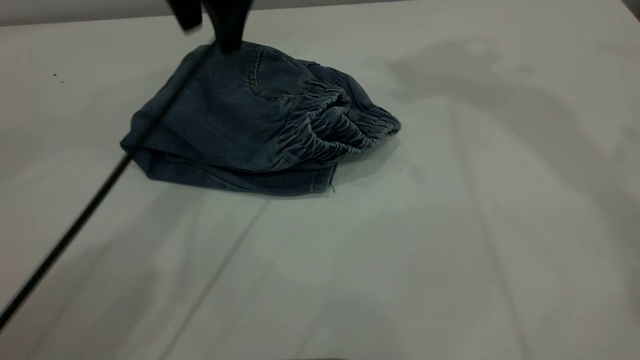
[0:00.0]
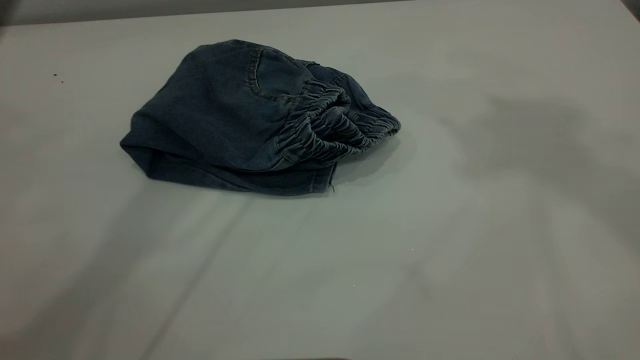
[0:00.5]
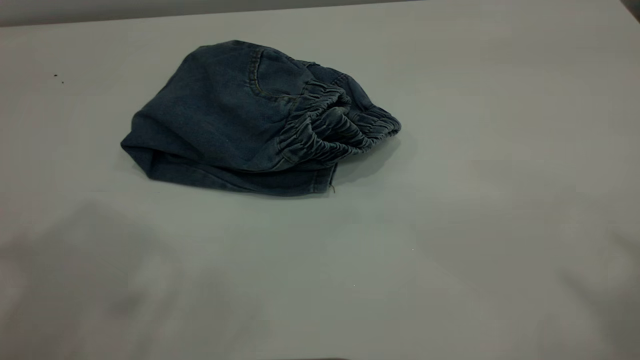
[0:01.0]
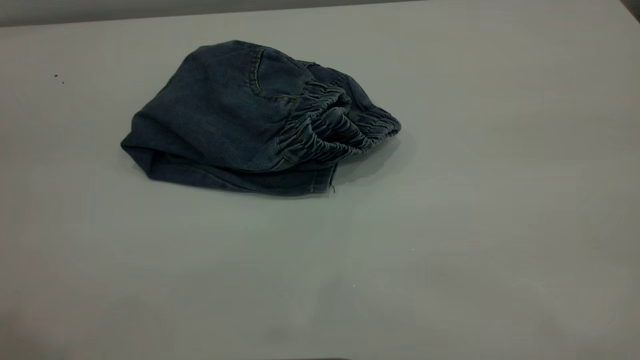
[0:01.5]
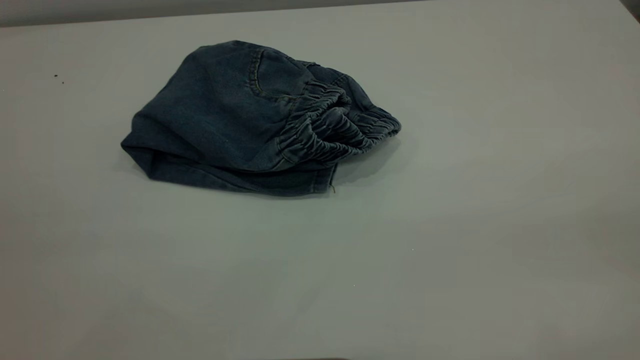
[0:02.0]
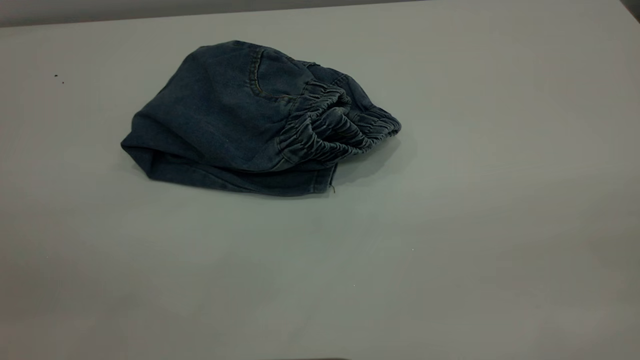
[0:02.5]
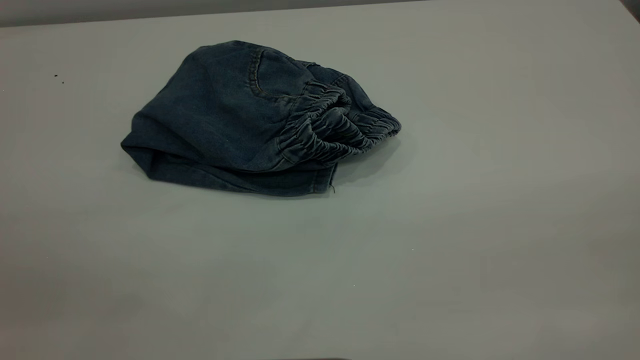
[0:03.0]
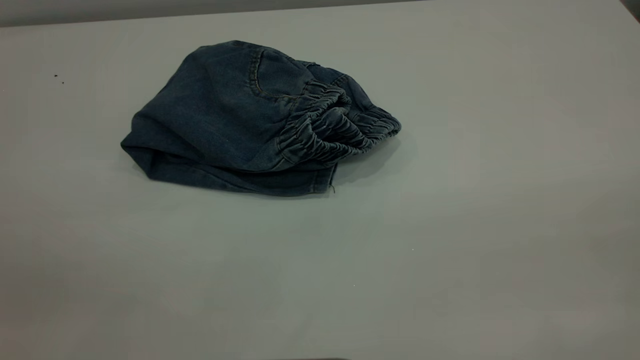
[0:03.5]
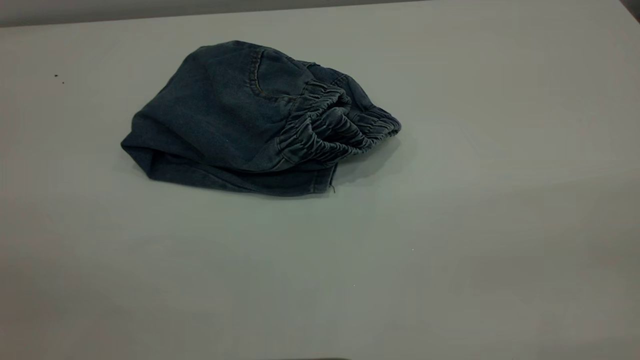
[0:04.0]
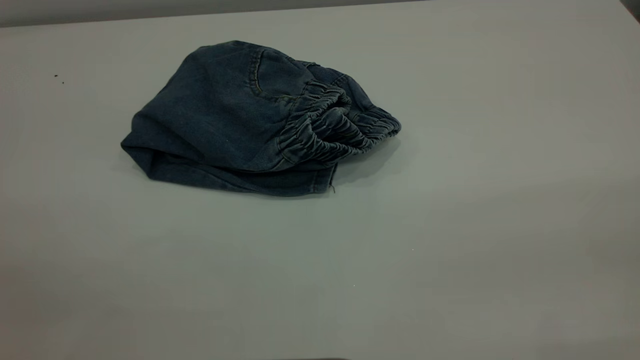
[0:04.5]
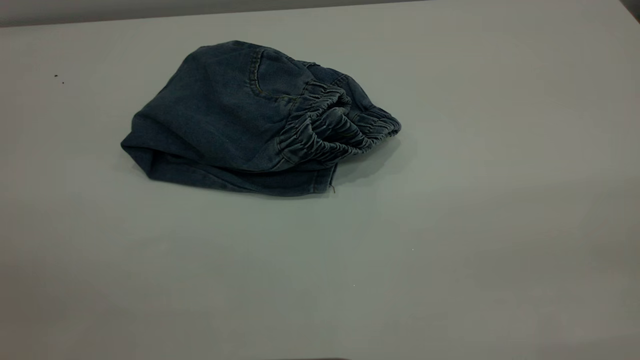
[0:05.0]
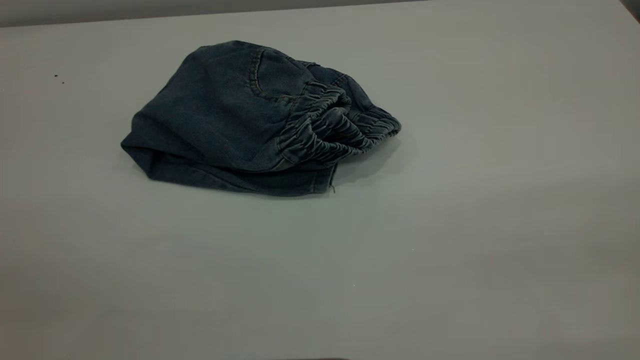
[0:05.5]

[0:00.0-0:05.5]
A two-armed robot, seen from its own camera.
0:00.0 to 0:02.0: The left gripper heads backward and to the left, covering roughly 40 cm; the right gripper travels backward by roughly 40 cm.

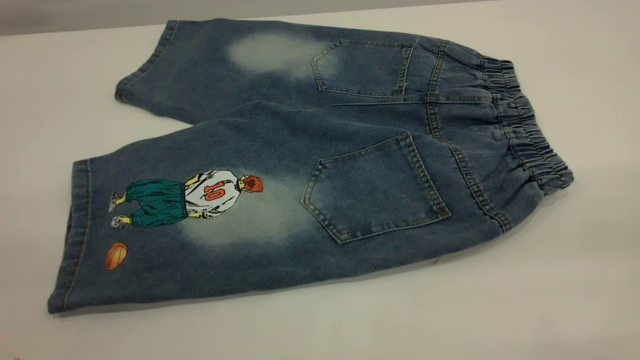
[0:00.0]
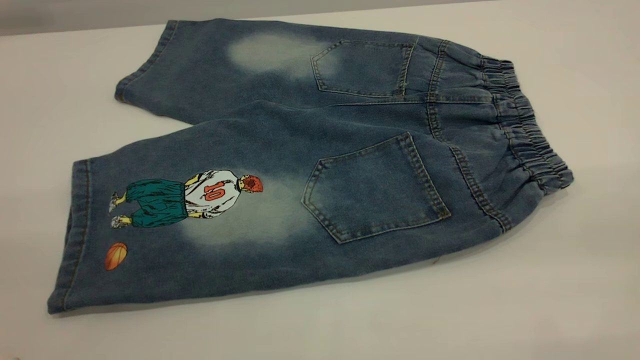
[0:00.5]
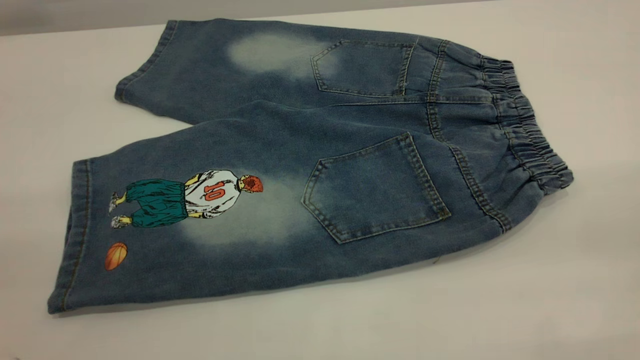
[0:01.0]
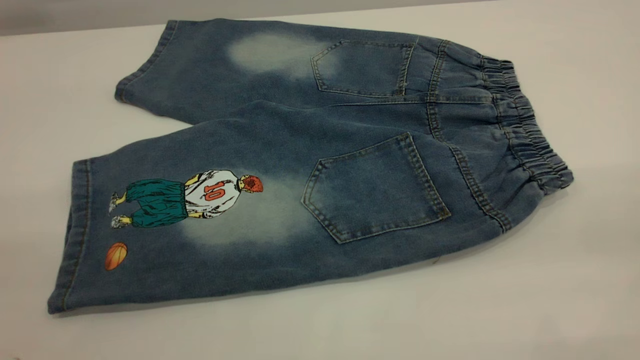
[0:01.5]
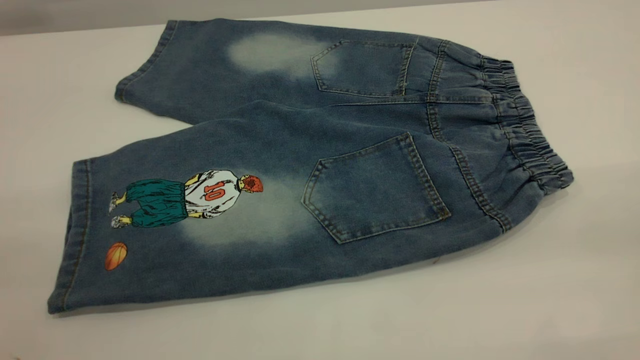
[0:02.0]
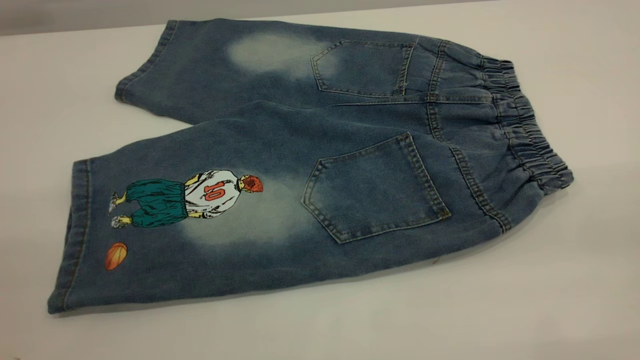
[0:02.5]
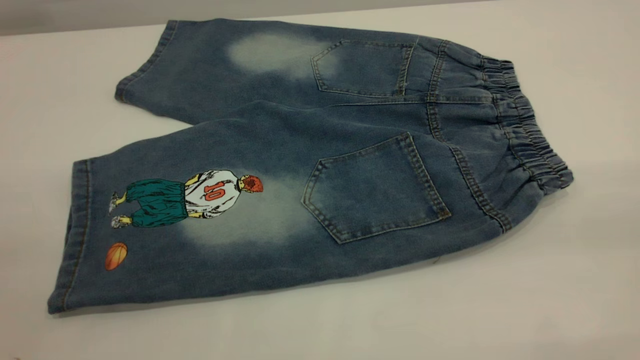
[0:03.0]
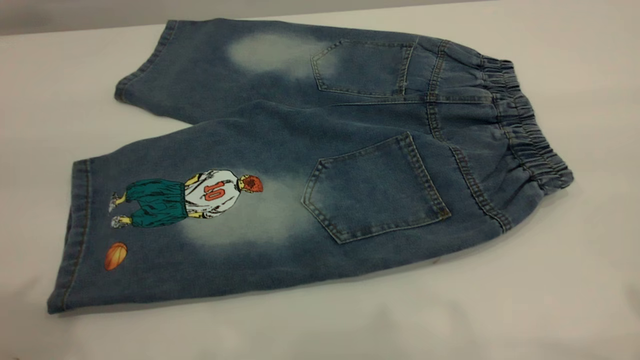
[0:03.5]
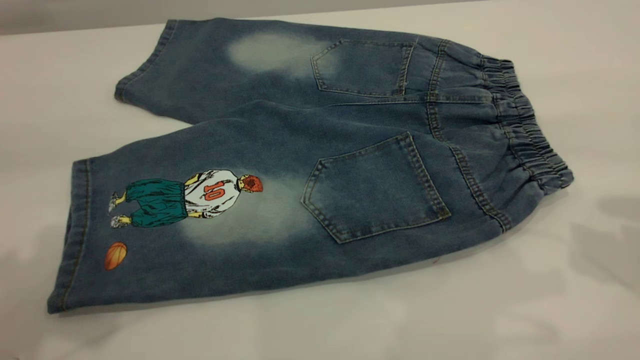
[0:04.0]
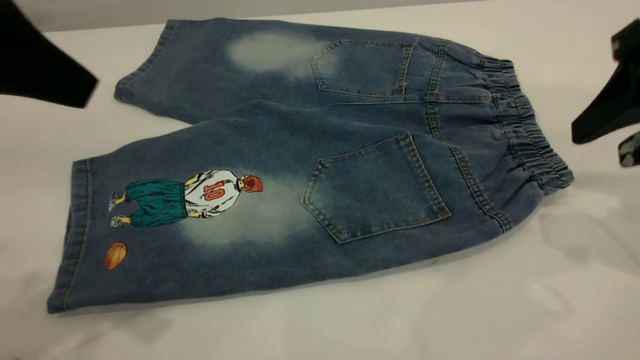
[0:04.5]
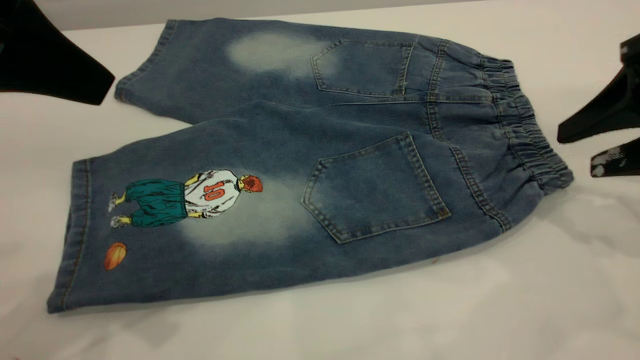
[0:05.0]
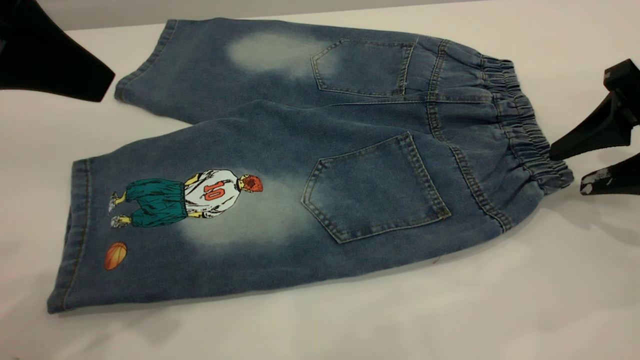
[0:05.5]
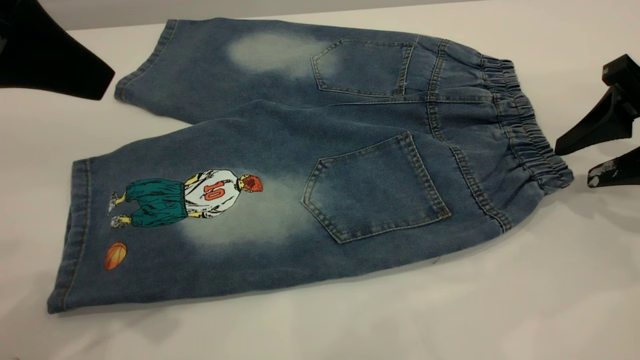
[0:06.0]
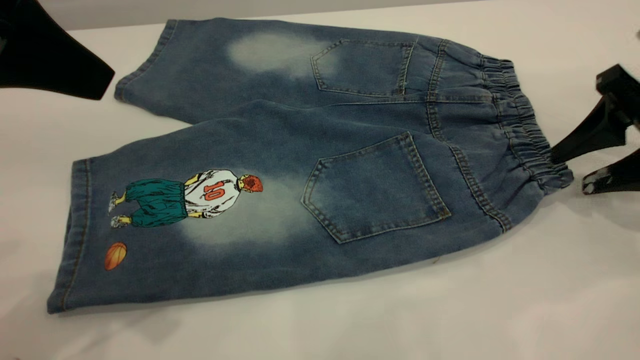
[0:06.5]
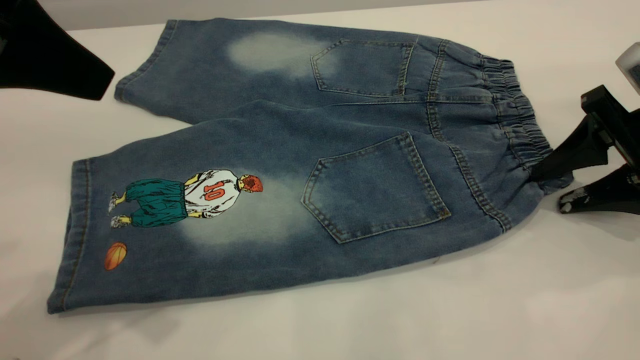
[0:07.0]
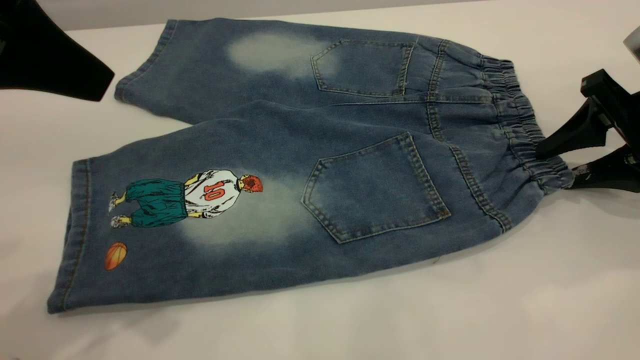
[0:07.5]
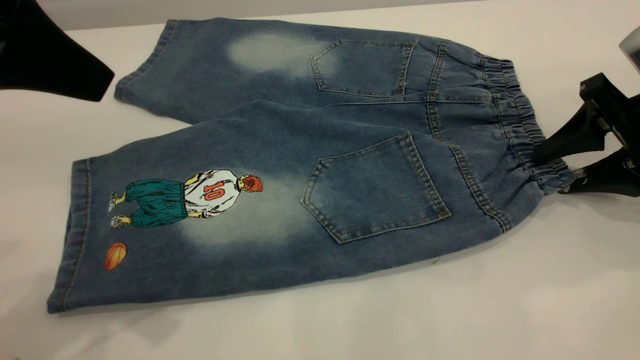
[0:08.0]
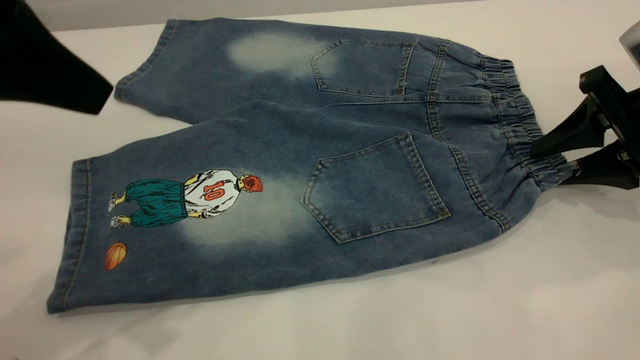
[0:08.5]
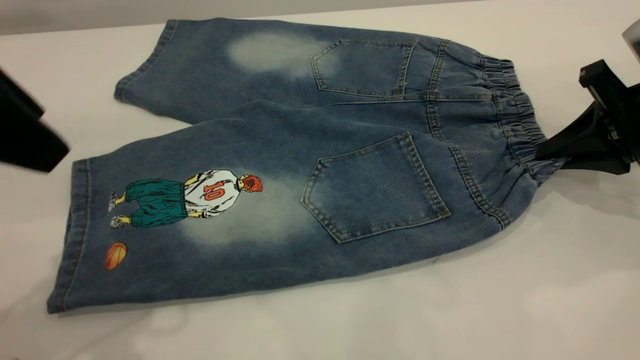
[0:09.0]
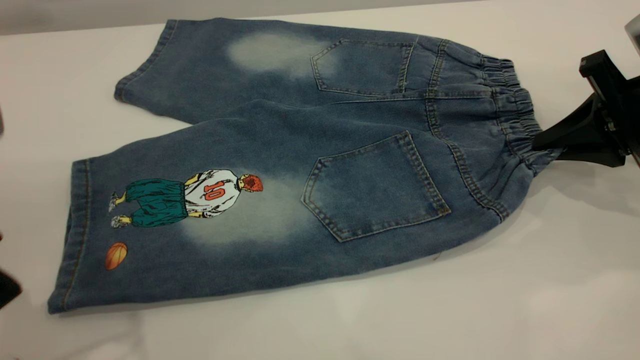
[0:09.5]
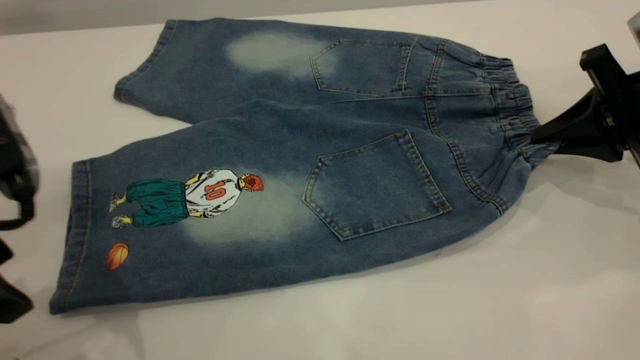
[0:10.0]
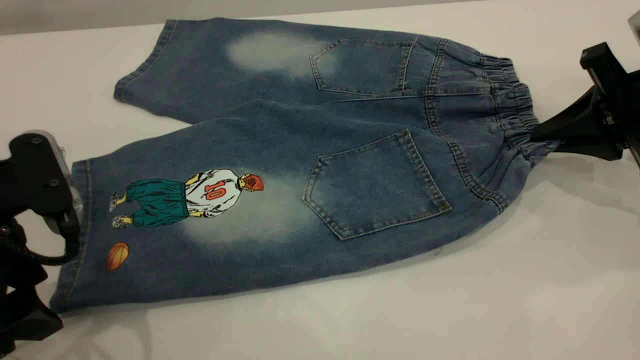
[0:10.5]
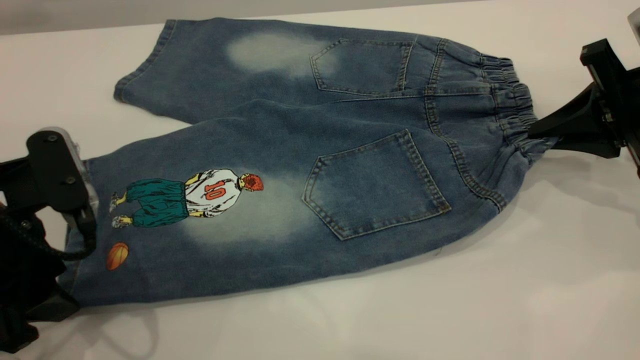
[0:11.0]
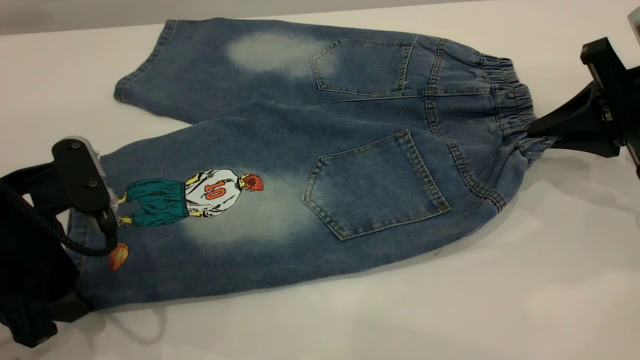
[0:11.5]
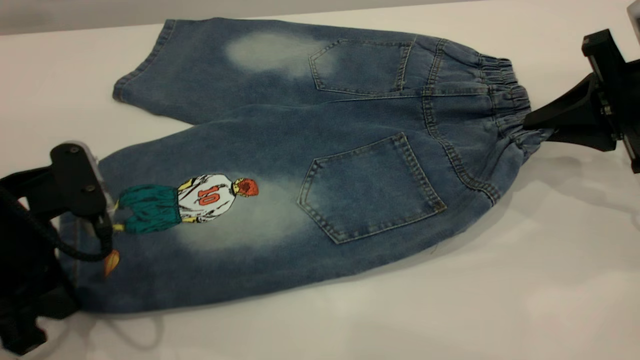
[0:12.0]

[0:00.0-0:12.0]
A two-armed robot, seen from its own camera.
0:00.0 to 0:02.0: Neither gripper changes place.
0:04.0 to 0:06.0: The right gripper shifts roughly 15 cm downward and forward; the left gripper shifts approximately 5 cm to the right.
0:06.0 to 0:08.0: The grippers stay close to where they were, moving slightly.
0:08.0 to 0:10.0: The left gripper shifts some 10 cm downward, while the right gripper closes its fingers.
0:10.0 to 0:12.0: The left gripper goes some 5 cm downward, and closes its fingers.

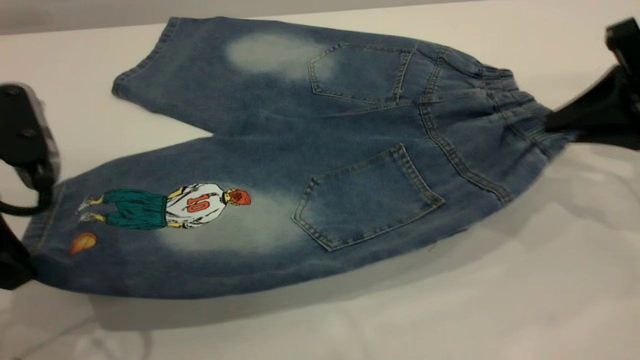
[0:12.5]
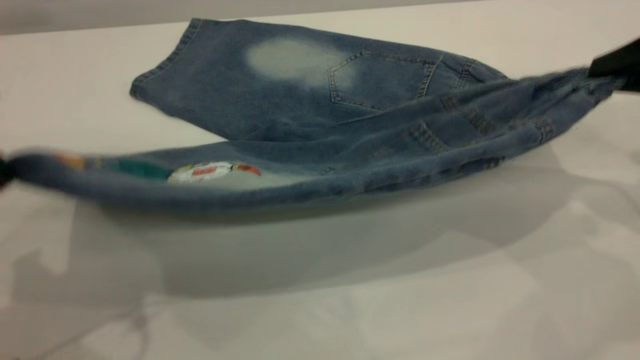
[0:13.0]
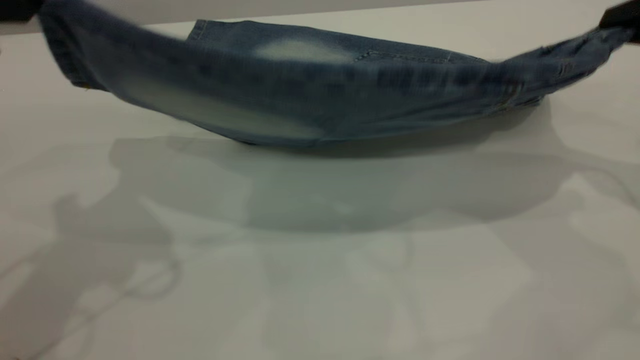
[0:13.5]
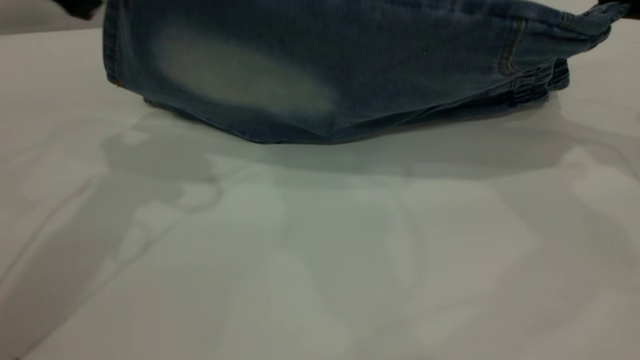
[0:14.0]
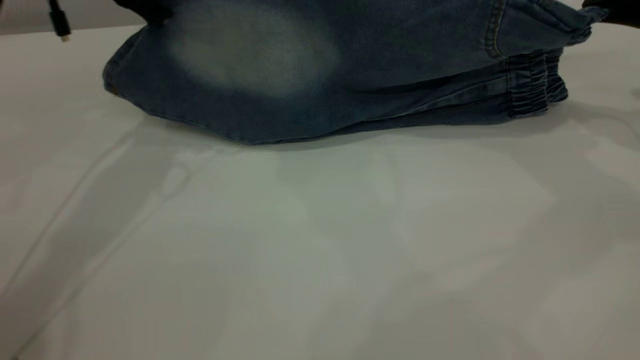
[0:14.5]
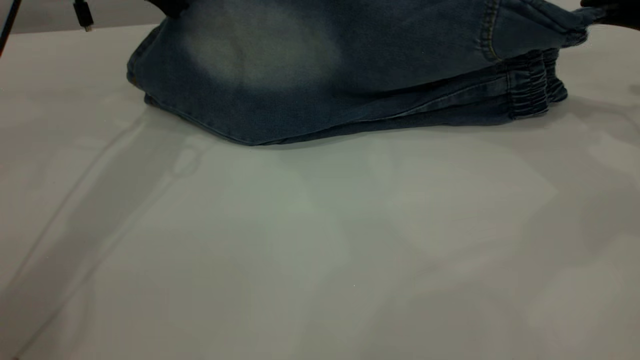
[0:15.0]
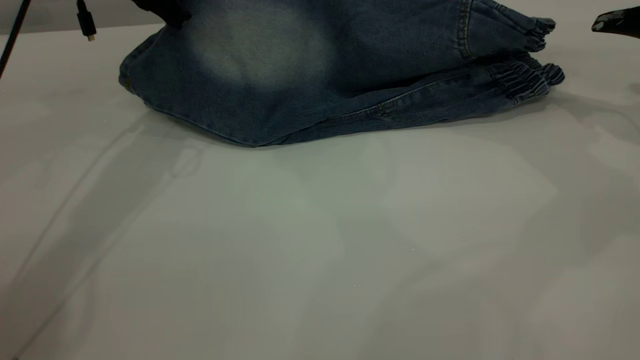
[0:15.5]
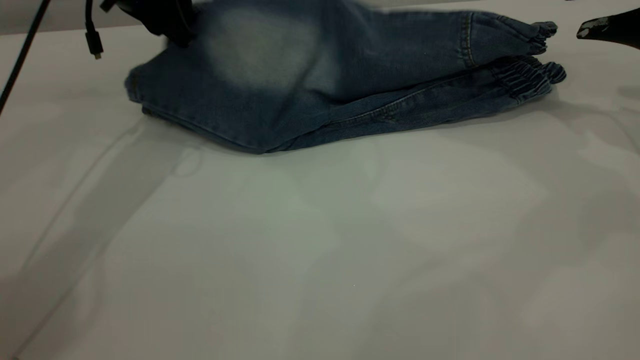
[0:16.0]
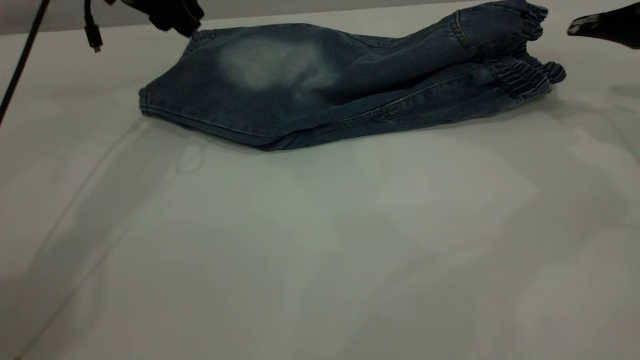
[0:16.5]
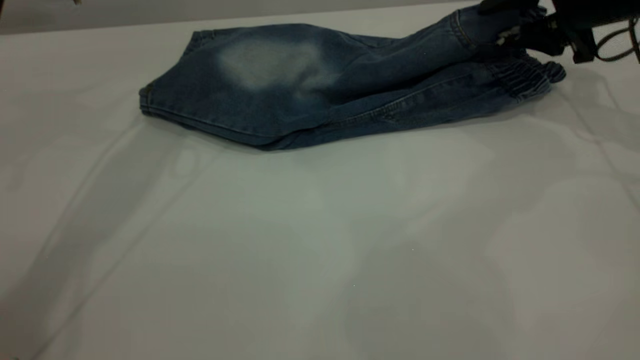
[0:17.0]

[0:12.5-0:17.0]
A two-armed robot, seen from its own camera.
Step, 0:12.5 to 0:16.0: Fold the bottom of the pants upward.
0:12.5 to 0:14.5: The right gripper travels forward and to the right by roughly 10 cm. Meanwhile the left gripper heads forward, covering some 20 cm.
0:14.5 to 0:17.0: The right gripper travels forward and to the left by roughly 10 cm, and opens its fingers, while the left gripper opens its fingers.
